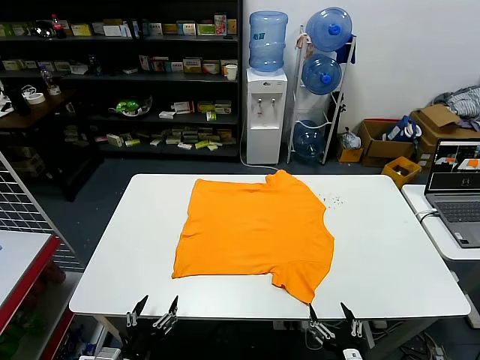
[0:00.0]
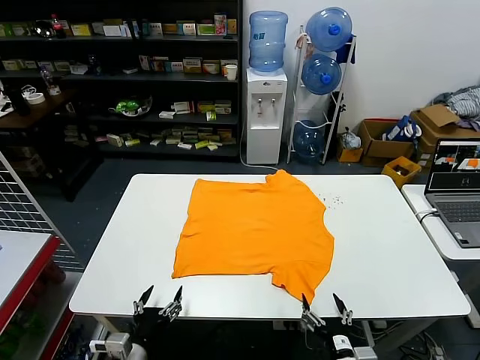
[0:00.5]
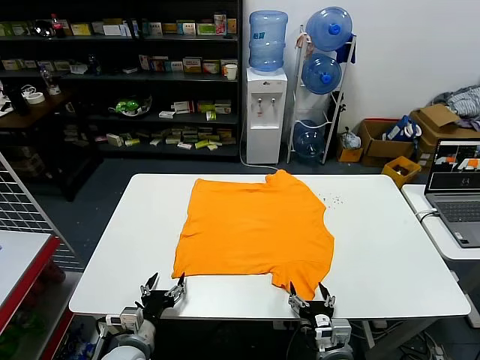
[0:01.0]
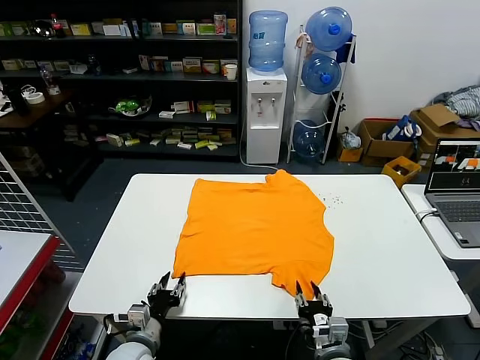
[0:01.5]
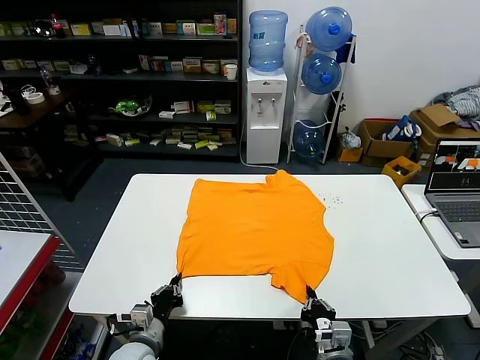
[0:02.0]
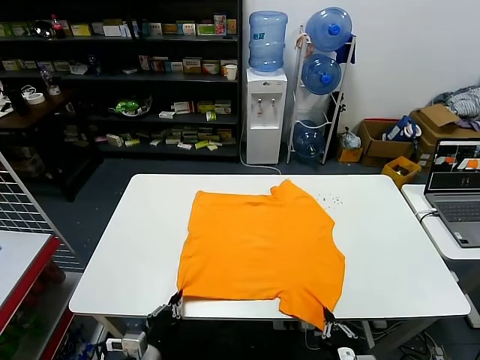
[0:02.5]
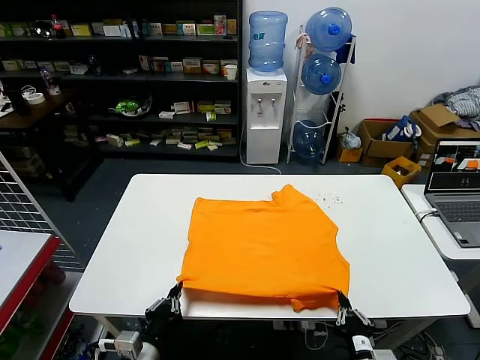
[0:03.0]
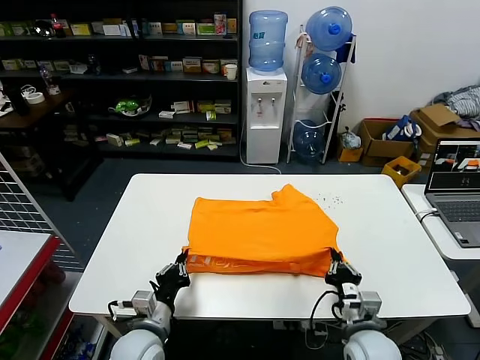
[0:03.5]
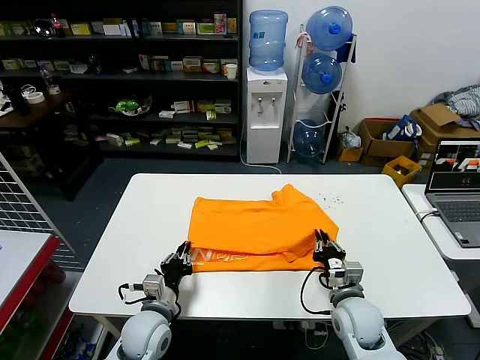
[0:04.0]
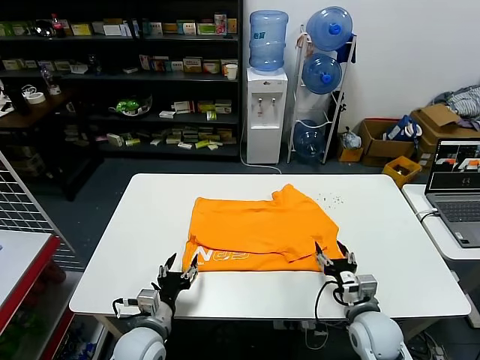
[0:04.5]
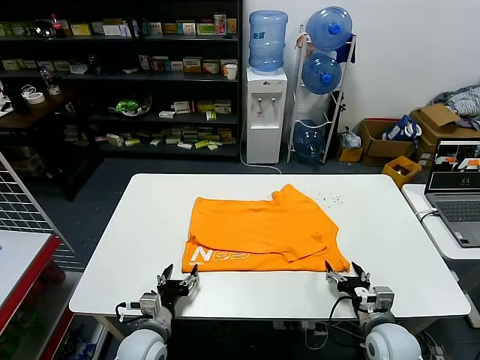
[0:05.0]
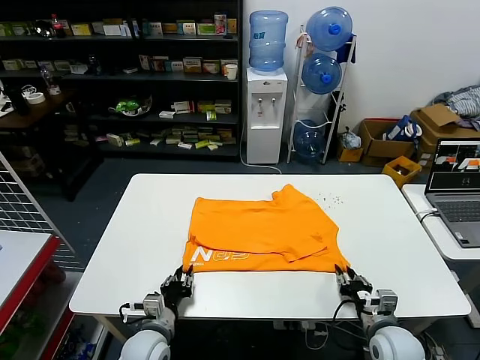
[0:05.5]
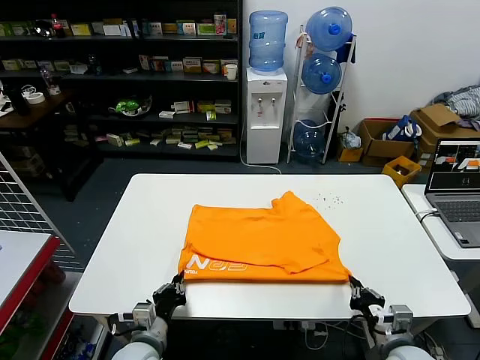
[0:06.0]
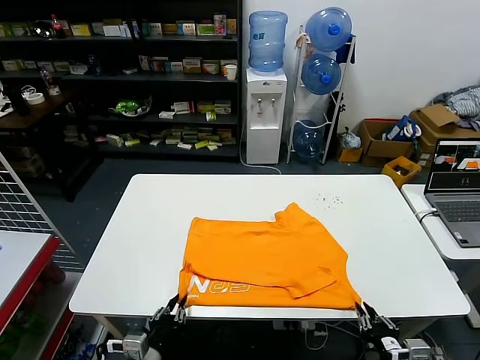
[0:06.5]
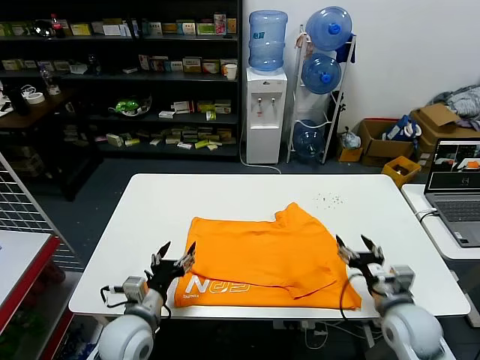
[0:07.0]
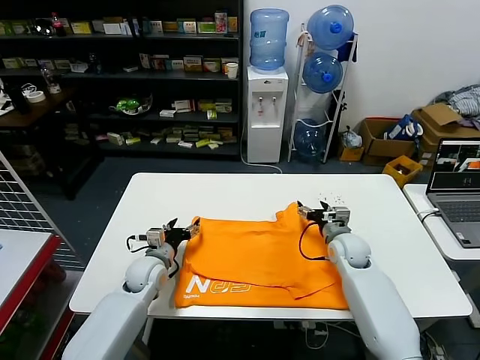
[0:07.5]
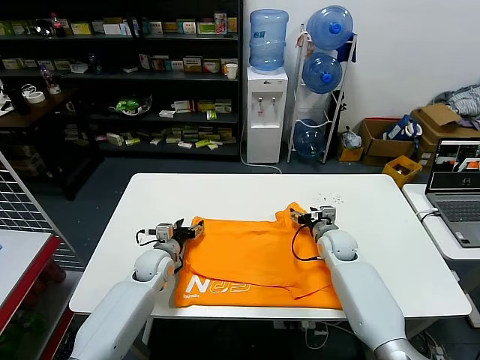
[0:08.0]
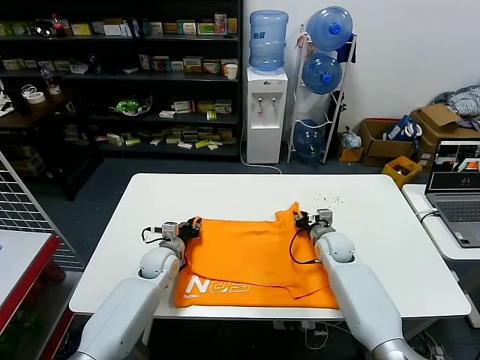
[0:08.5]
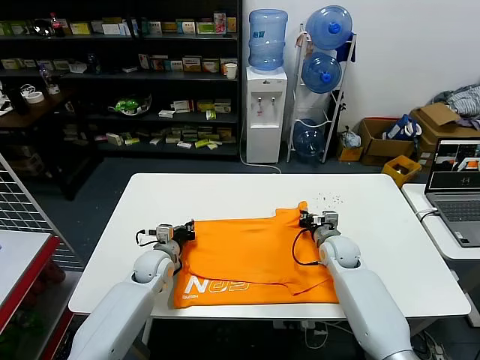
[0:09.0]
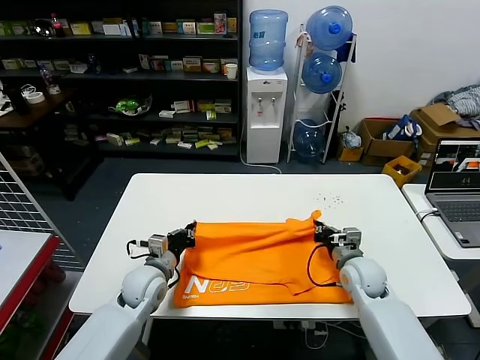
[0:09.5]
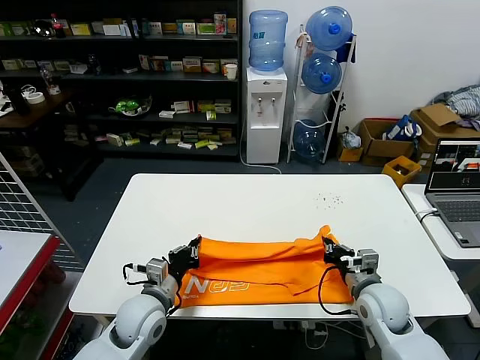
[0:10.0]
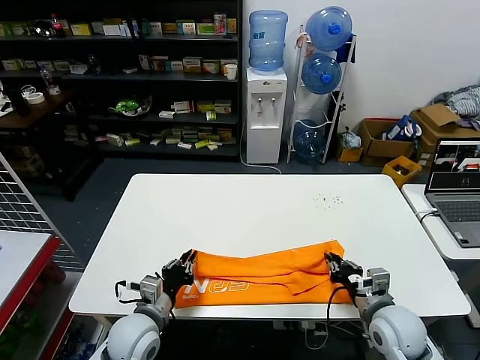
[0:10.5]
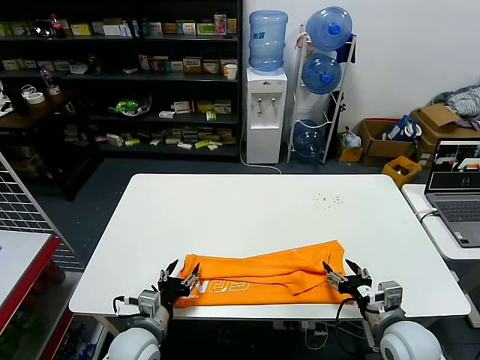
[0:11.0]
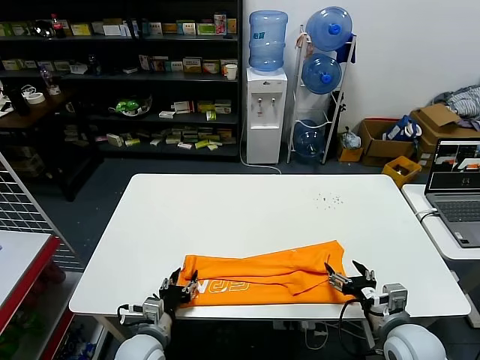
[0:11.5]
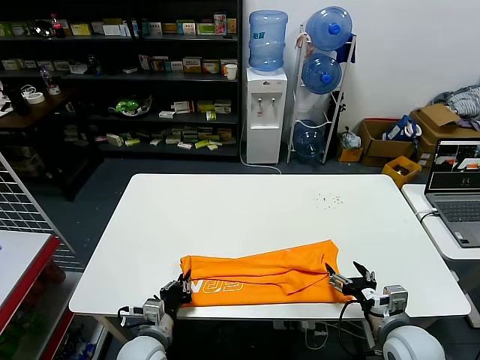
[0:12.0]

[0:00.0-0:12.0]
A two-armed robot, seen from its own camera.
Task of the whole recording: fold and organize the clothes.
Step, 0:00.0 to 0:02.0: use both grippers simultaneously to clamp the lower edge of the clothing fabric.
Step, 0:02.5 to 0:04.0: use both grippers to drag the lower edge of the fabric forward and fold it over the upper edge.
Step, 0:04.5 to 0:06.5: Drag the clothes downward with both gripper.
Step, 0:07.0 to 0:08.5: use both grippers simultaneously to clamp the upper edge of the clothing fabric.
Step, 0:09.0 to 0:10.5: use both grippers to drag the upper edge of the fabric backward and fold it over the lower edge.
Step, 0:11.0 to 0:11.5: use the left gripper to clamp the left edge of the fabric.
0:02.0 to 0:04.0: The right gripper shifts about 10 cm forward. Meanwhile the left gripper moves forward, about 5 cm.
0:04.0 to 0:06.0: The left gripper travels backward by some 5 cm, and opens, then closes once more; the right gripper travels backward and to the right by approximately 15 cm, and opens, then closes again.
0:06.0 to 0:08.0: The two grippers go about 25 cm forward. The right gripper opens up, while the left gripper opens up.
0:08.0 to 0:10.0: The right gripper shifts some 20 cm backward, and closes up; the left gripper goes some 15 cm backward and upward, and closes.
0:10.0 to 0:12.0: The left gripper travels downward and backward by about 10 cm, and opens, then closes again, while the right gripper moves backward, roughly 10 cm, and opens.

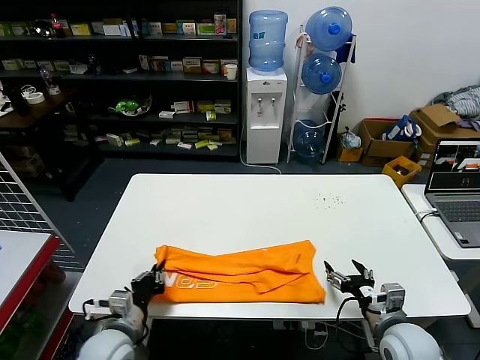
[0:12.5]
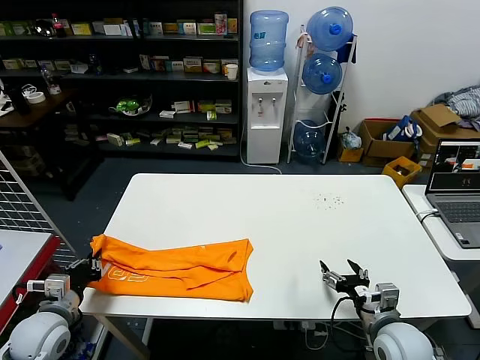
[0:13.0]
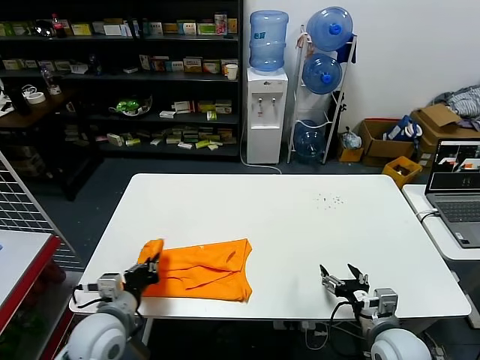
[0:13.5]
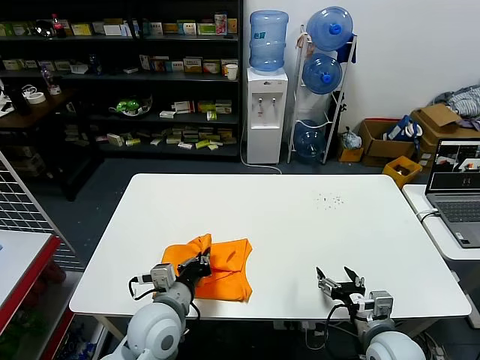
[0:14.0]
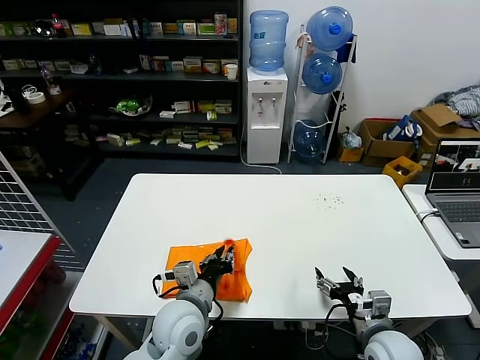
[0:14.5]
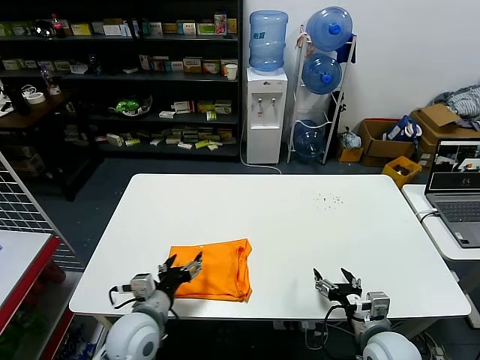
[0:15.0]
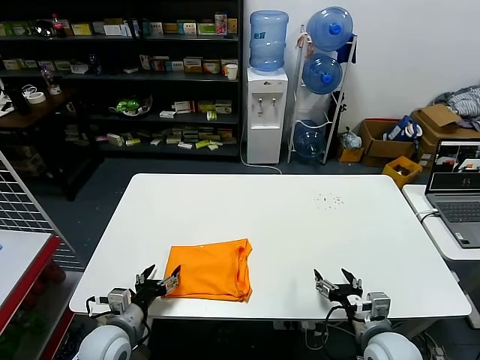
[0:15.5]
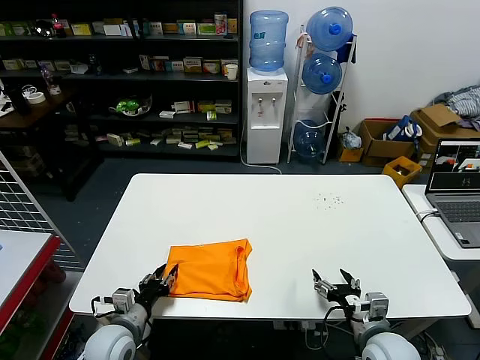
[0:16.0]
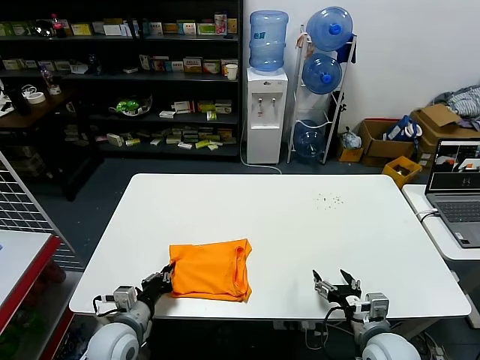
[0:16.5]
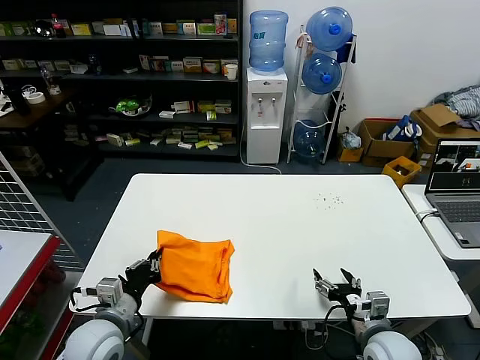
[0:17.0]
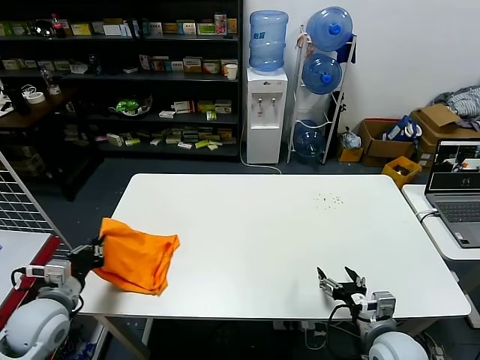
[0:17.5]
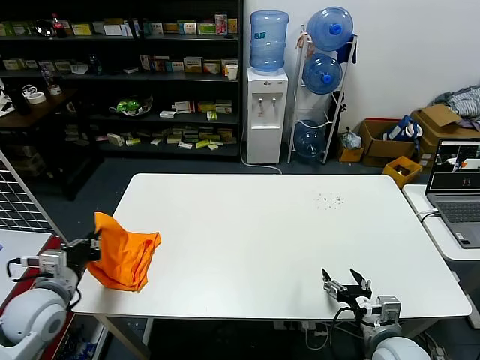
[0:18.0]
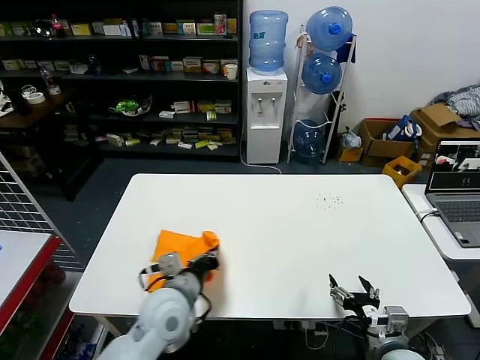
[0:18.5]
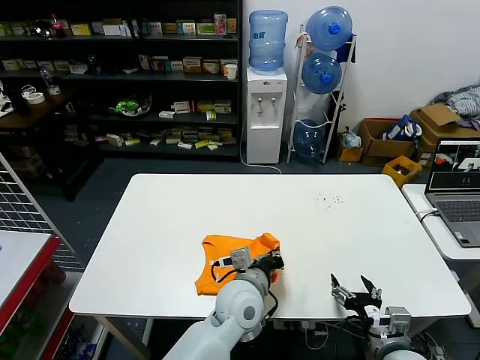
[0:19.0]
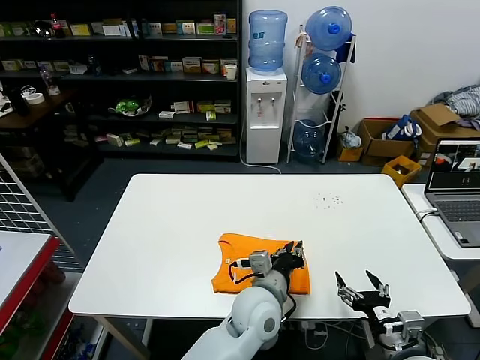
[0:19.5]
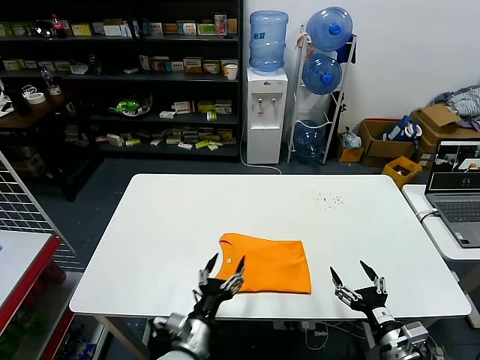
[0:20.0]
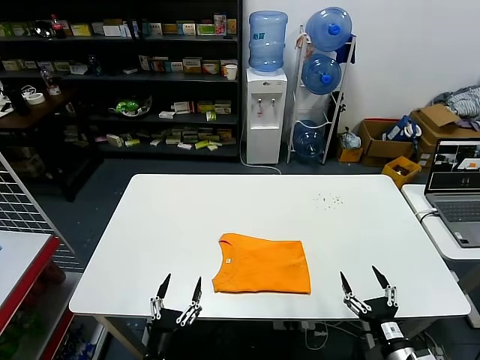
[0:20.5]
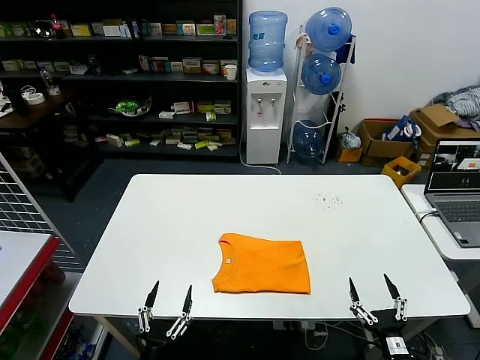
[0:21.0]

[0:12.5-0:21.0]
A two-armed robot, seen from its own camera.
Task of the whole recording: fold and organize the clothes.
Step, 0:12.5 to 0:14.5: use the left gripper to drag the left edge of the fabric to the left and folds it over the right edge.
Step, 0:15.0 to 0:19.5: Flip the folded clothes over with left gripper.
0:12.5 to 0:14.5: The left gripper goes roughly 15 cm to the right and upward.
0:14.5 to 0:16.5: The left gripper is displaced to the left and downward by roughly 20 cm, and opens and closes again.
0:16.5 to 0:19.0: The left gripper shifts about 25 cm to the right.
0:19.0 to 0:21.0: The right gripper is displaced backward and downward by some 10 cm, while the left gripper moves backward, to the left and downward, some 30 cm, and opens.

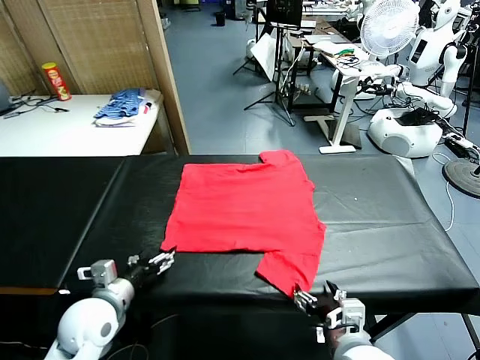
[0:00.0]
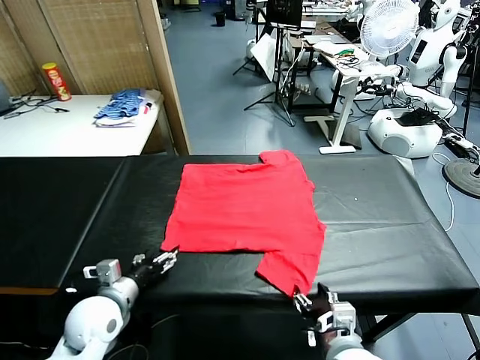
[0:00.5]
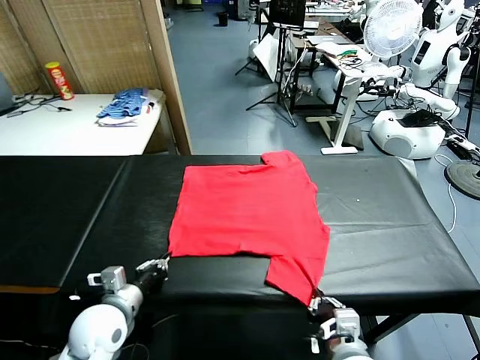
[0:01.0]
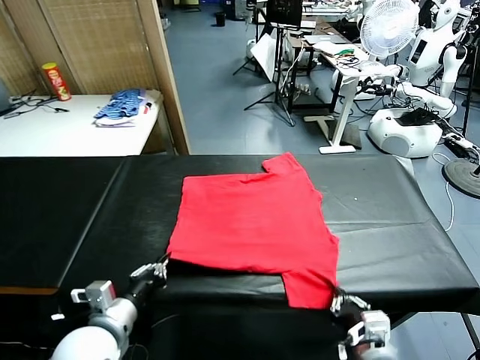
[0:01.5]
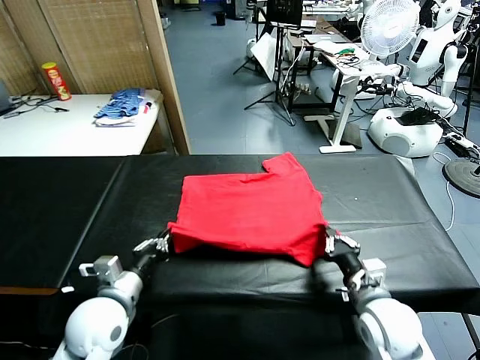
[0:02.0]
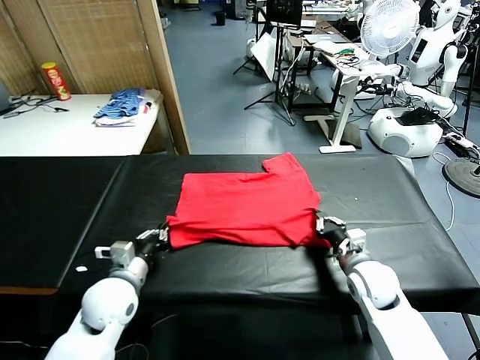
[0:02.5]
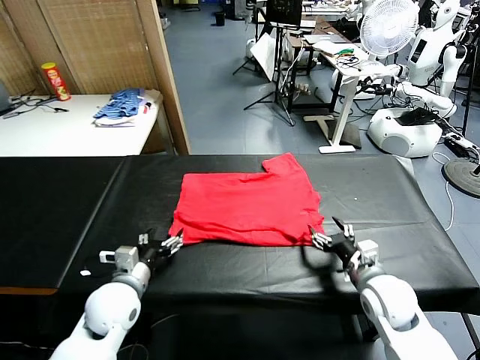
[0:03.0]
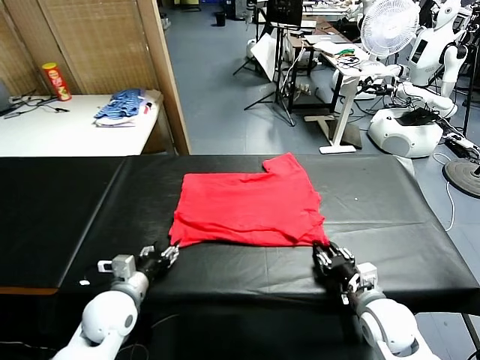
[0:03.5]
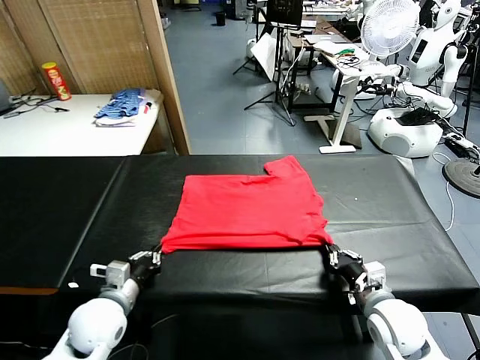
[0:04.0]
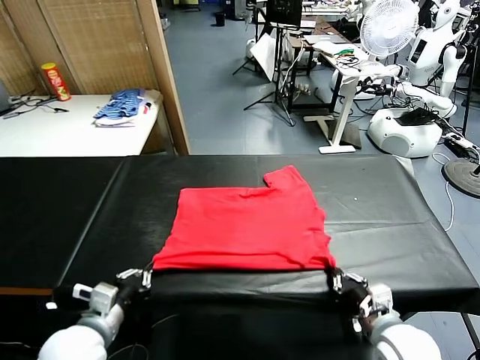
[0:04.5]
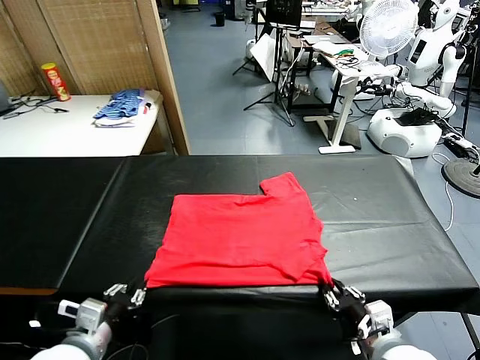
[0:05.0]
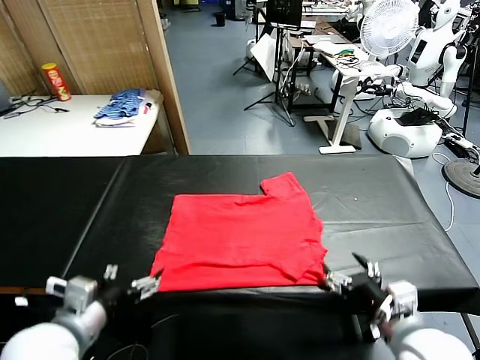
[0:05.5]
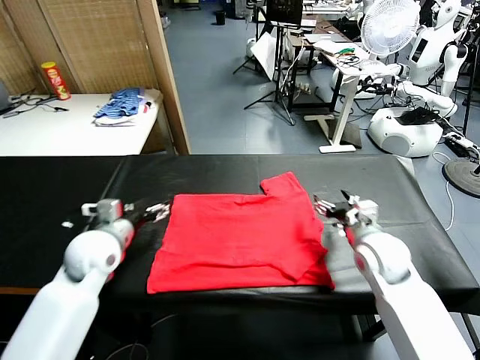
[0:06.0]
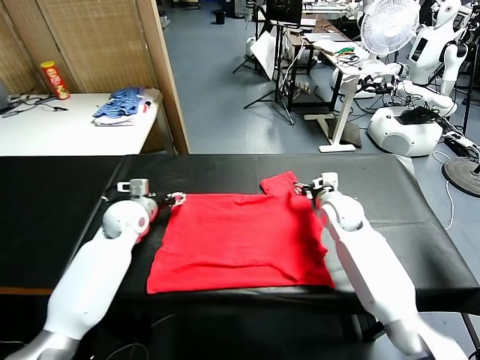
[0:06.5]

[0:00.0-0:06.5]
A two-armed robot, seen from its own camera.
Task of the whole recording: fold and organize the clothes.
Step, 0:00.0 to 0:01.0: use both grippers simultaneously to clamp the lower edge of the clothing fabric.
Step, 0:01.5 to 0:02.5: use both grippers to drag the lower edge of the fabric forward and fold it over the upper edge.
Step, 0:03.5 to 0:05.0: Drag the clothes downward with both gripper.
0:02.0 to 0:04.5: The right gripper travels backward by about 10 cm, and opens, then closes once more, while the left gripper goes approximately 5 cm backward, and opens, then closes once more.
0:04.5 to 0:06.5: The grippers both shift forward by some 30 cm. The right gripper opens, while the left gripper opens its fingers.
